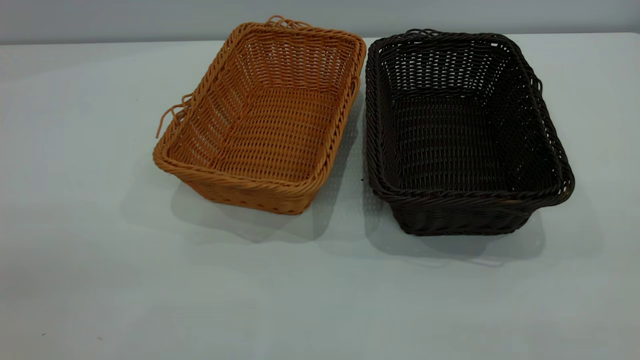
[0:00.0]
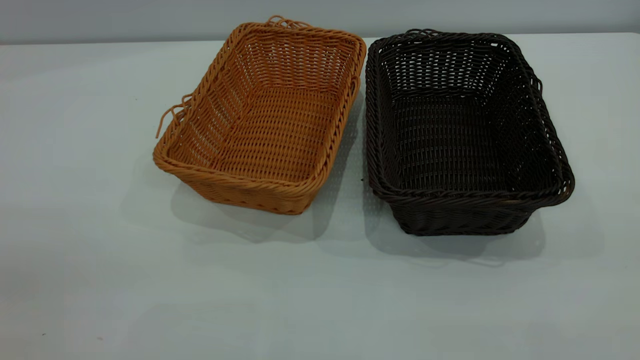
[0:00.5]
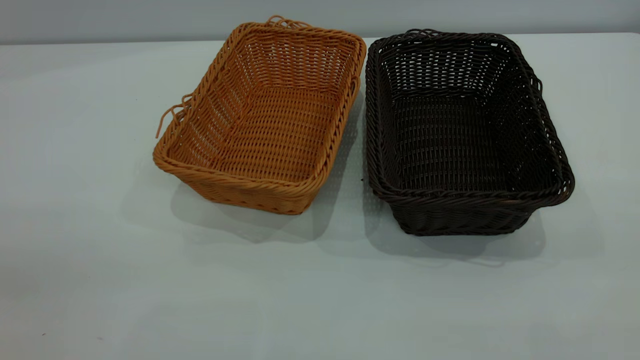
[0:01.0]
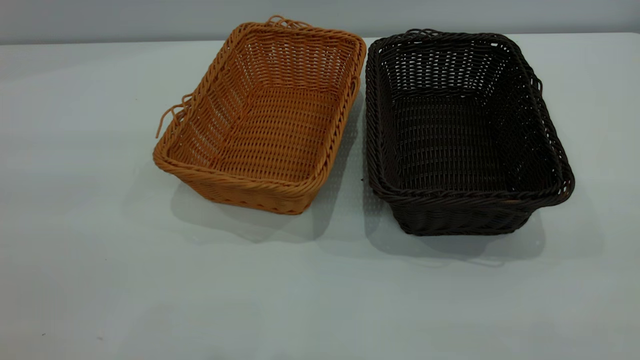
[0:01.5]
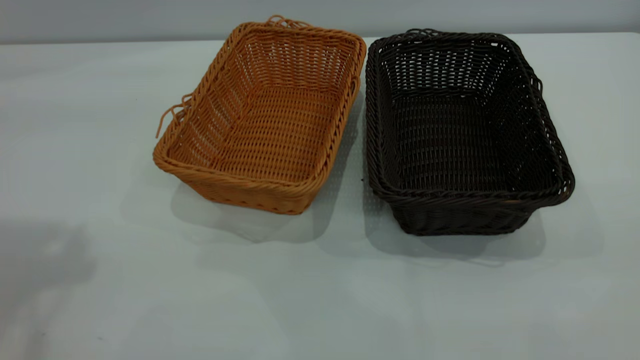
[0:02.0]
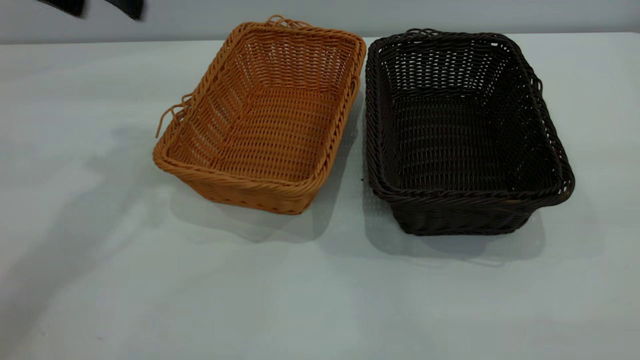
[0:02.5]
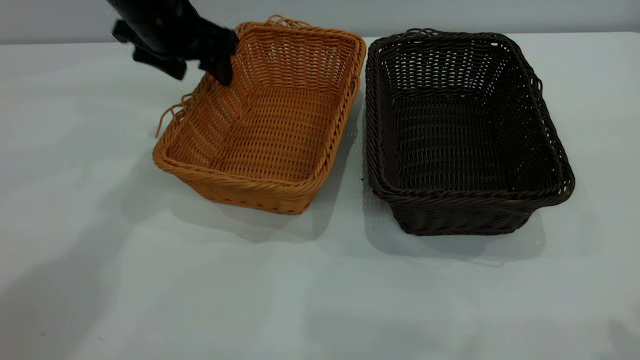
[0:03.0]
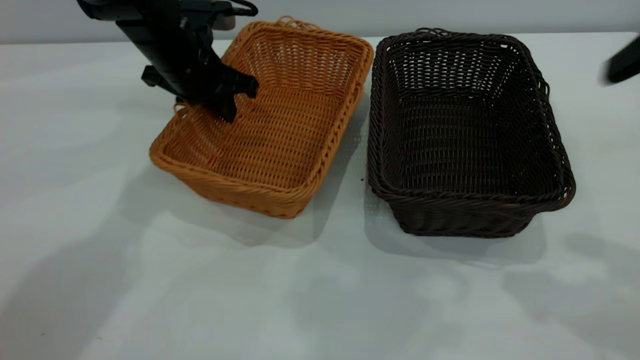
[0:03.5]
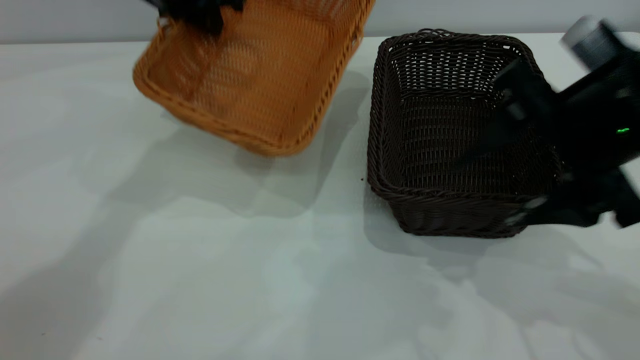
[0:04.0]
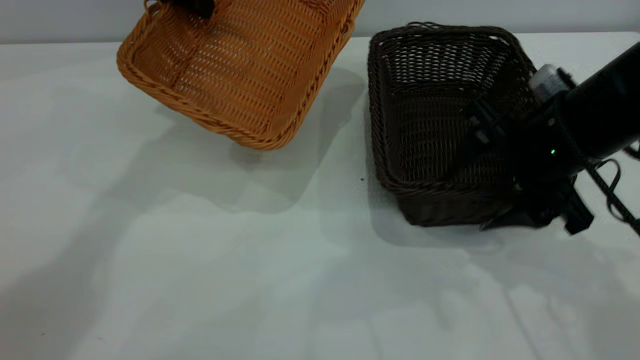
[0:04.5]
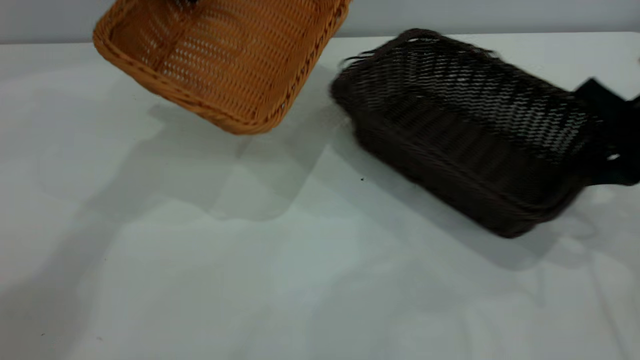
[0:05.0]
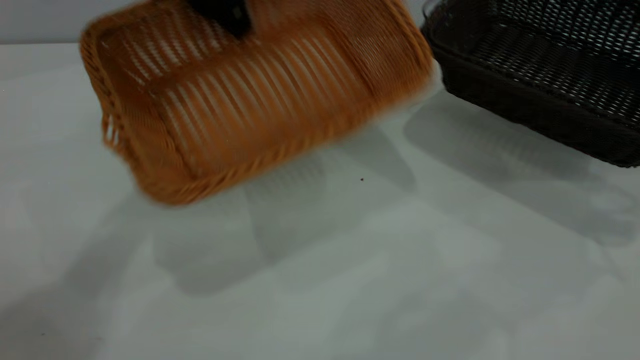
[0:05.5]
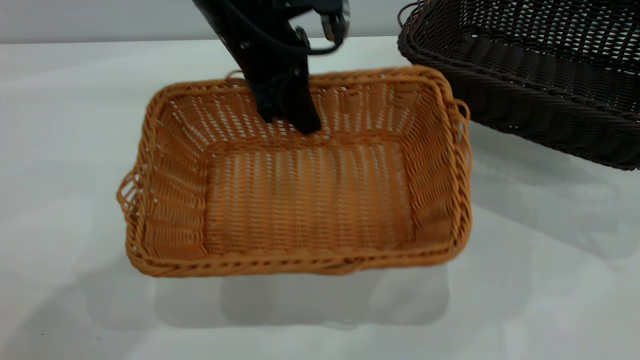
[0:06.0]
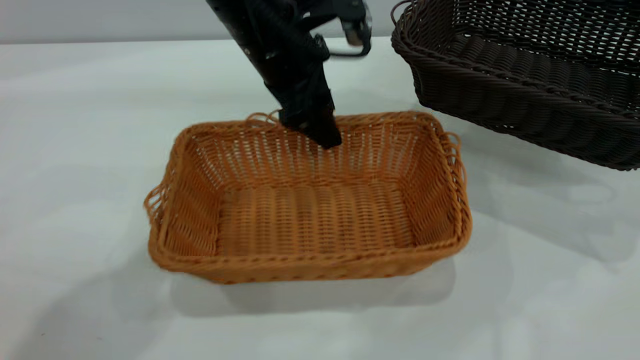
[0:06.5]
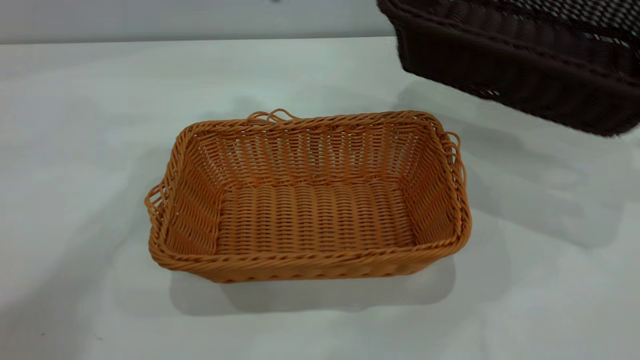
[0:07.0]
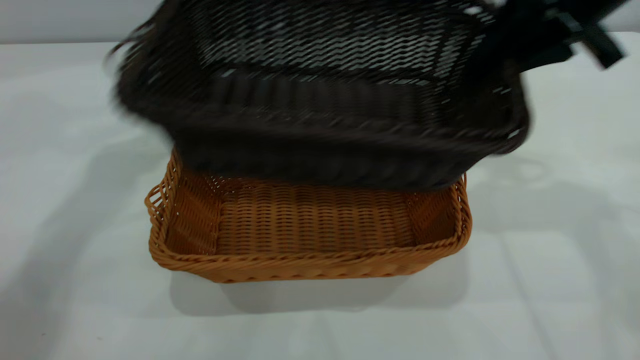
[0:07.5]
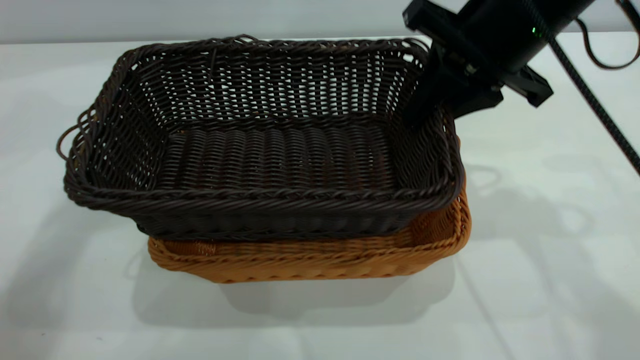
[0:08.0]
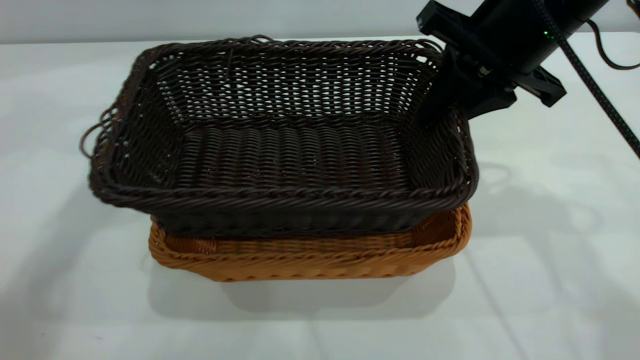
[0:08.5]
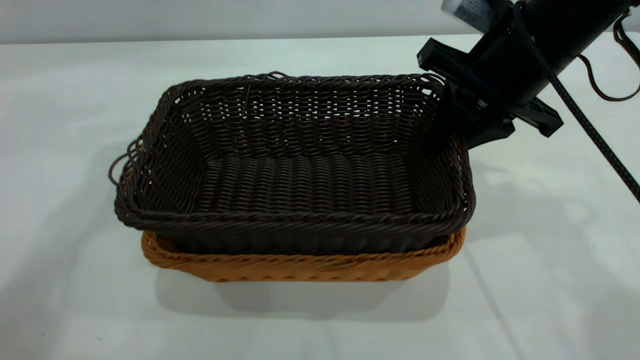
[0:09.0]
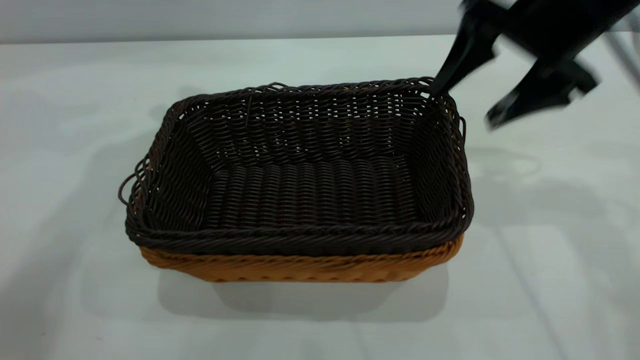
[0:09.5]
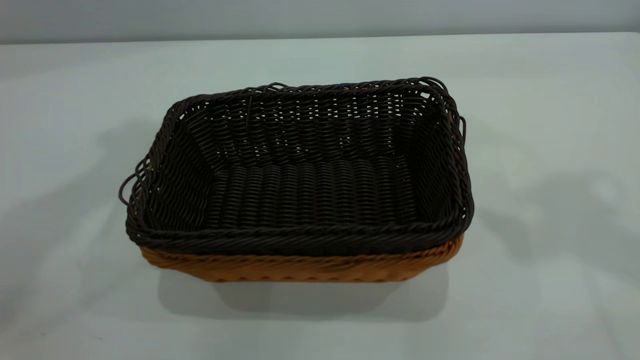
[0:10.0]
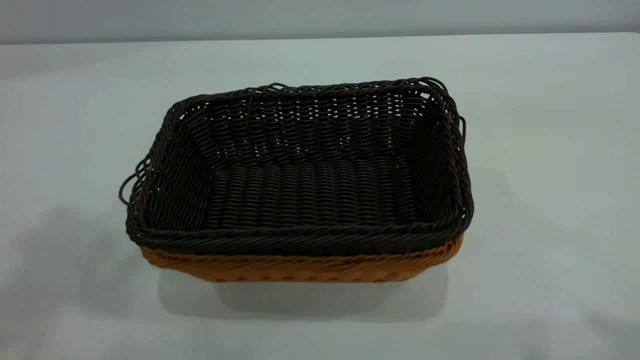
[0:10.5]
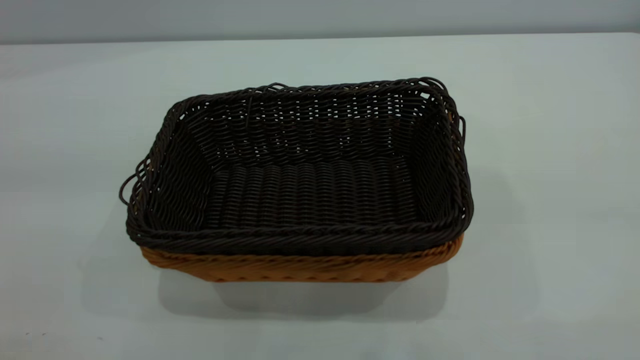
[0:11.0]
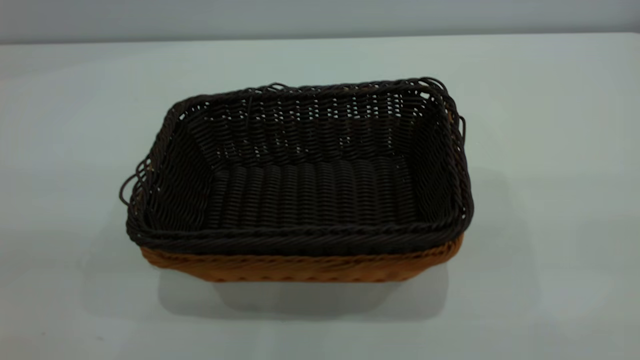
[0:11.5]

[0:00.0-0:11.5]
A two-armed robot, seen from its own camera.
Task of the whole recording: the left gripper grasp the brown basket and place it in the center of the table, the right gripper grasp the black basket and place it inside the brown one.
Step, 0:00.0 to 0:05.0: Pick up the light basket with the right gripper.
Step, 0:05.5 to 0:06.5: Place the light-colored basket in the center.
Step, 0:07.0 to 0:09.0: Place the dark basket on top of the light basket.
0:02.0 to 0:04.0: The right gripper goes some 30 cm forward and downward. The left gripper moves forward, downward and to the right, roughly 30 cm, and closes its fingers.
0:04.0 to 0:06.0: The left gripper shifts about 10 cm to the right and backward. Meanwhile the right gripper goes approximately 20 cm to the right, and closes.
0:06.0 to 0:07.5: The left gripper is displaced to the left, upward and forward by roughly 20 cm, and opens its fingers. The right gripper travels to the left by roughly 20 cm.
0:07.5 to 0:09.5: The right gripper opens up.
0:09.5 to 0:11.5: The grippers both shift backward by about 40 cm.

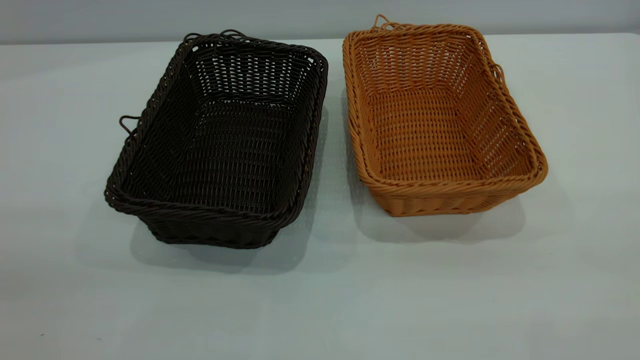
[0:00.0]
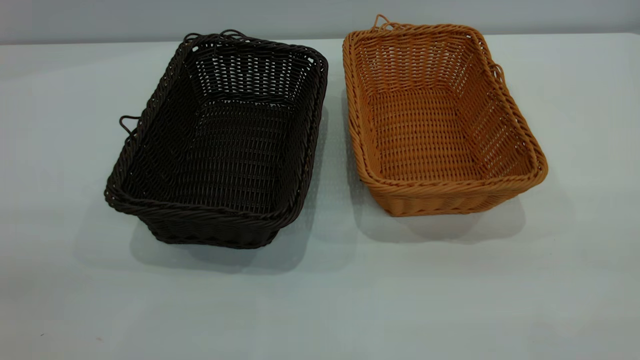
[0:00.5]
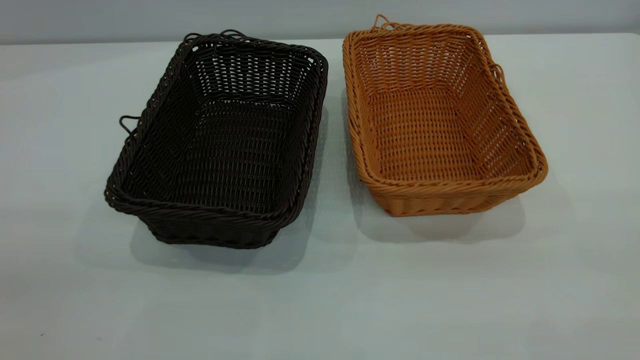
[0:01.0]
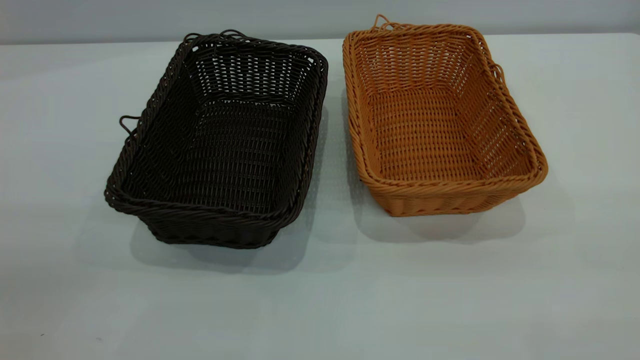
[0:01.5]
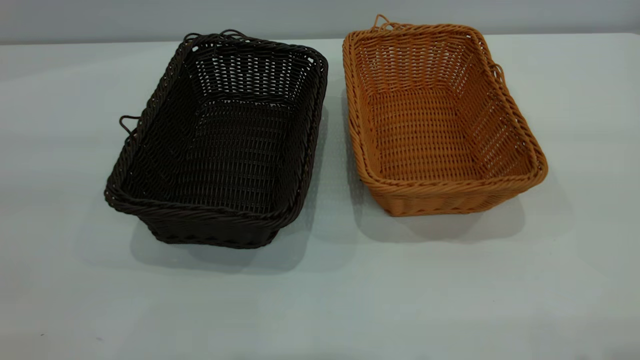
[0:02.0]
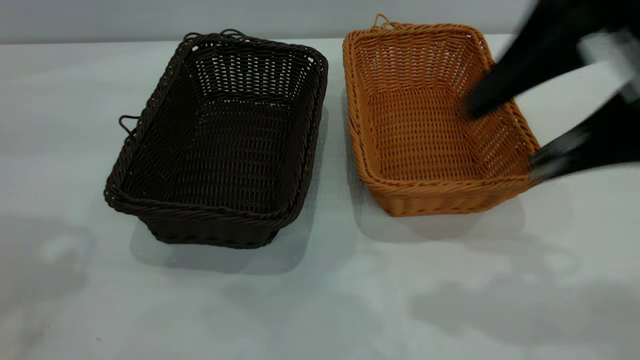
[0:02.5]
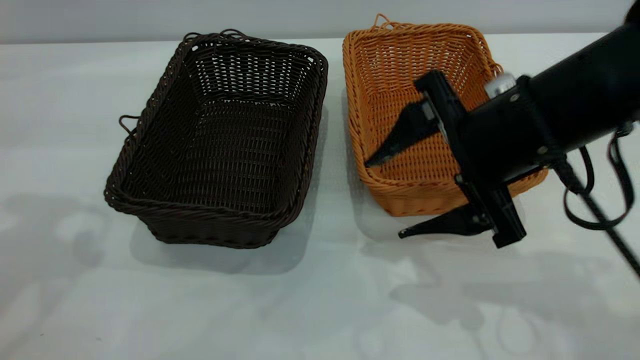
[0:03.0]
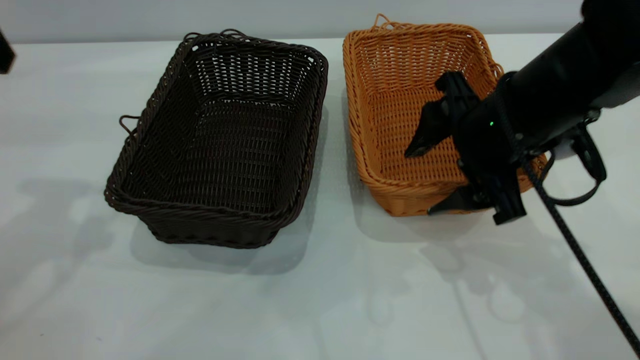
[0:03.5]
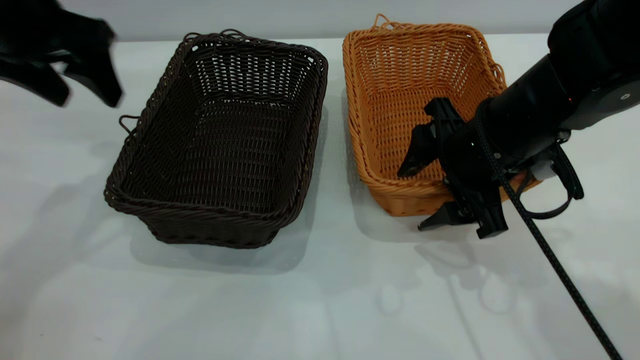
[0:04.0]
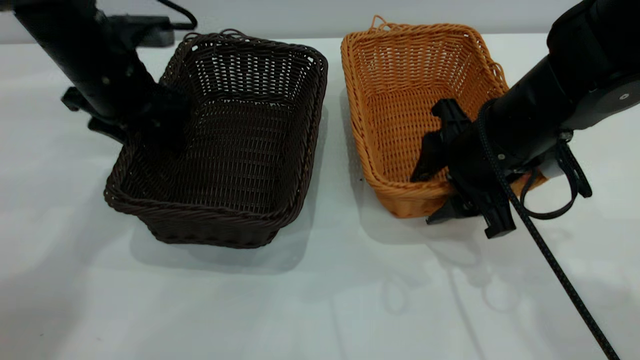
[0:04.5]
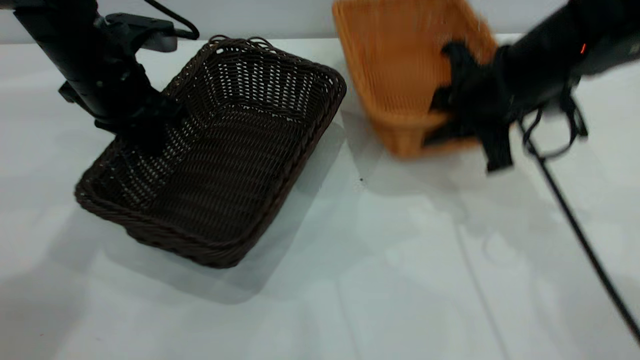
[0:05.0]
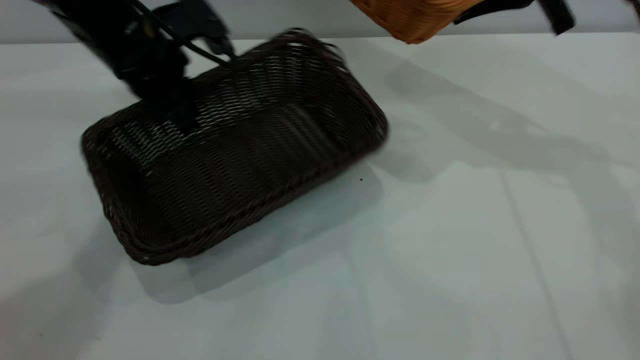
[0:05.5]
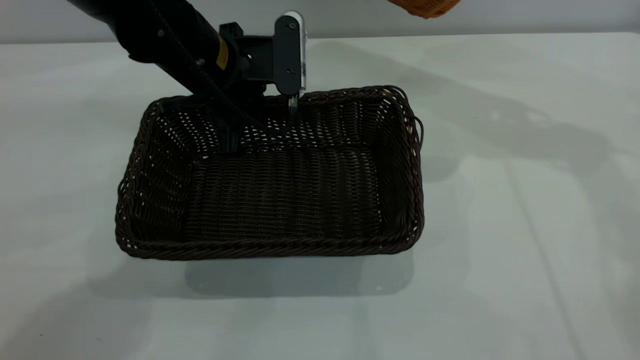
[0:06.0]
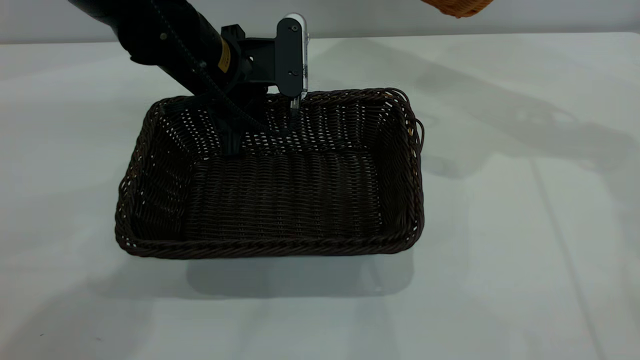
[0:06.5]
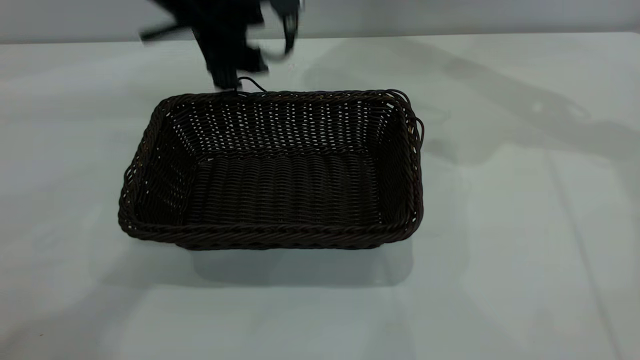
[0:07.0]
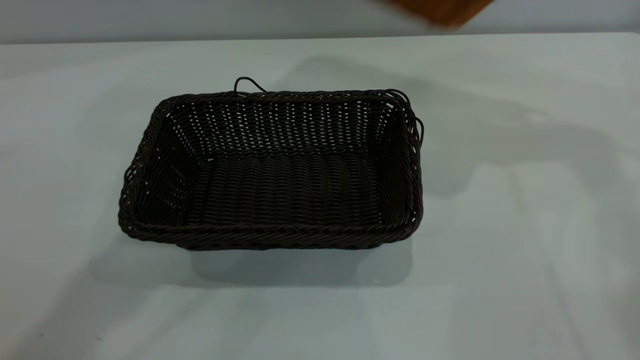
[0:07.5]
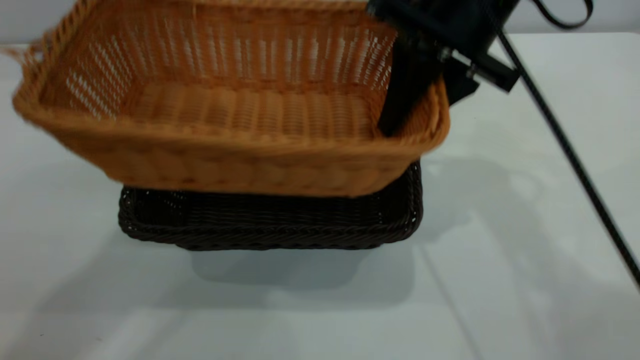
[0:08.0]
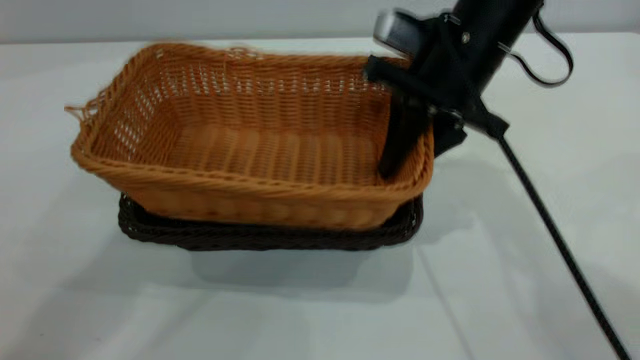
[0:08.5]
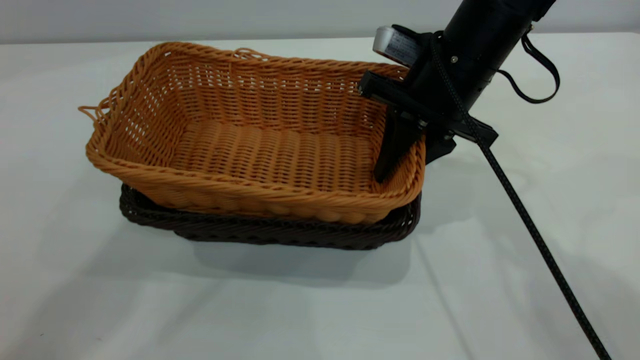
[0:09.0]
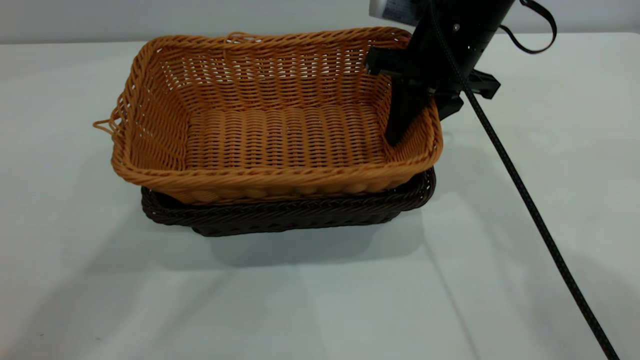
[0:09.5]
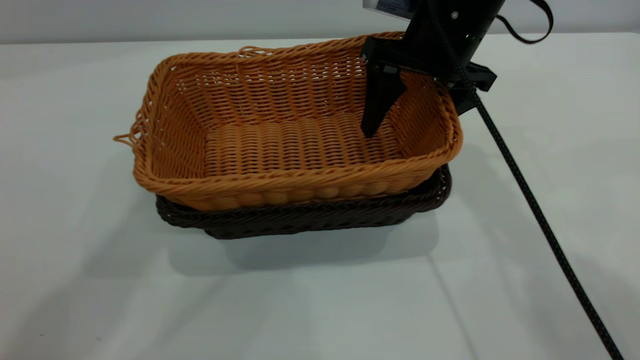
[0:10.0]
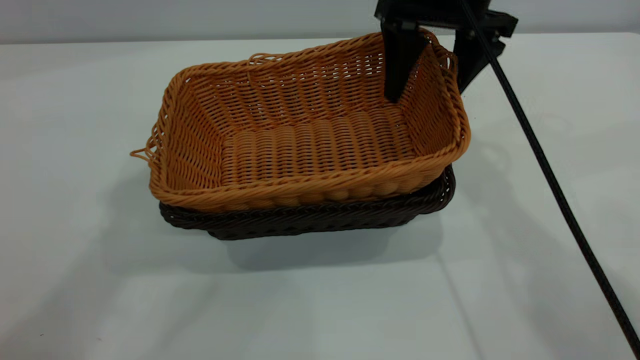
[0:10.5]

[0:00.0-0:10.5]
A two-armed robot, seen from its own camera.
Task of the whole recording: the left gripper grasp the black basket and place it in the center of the table, the right gripper grasp the brown basket and place it inside the black one.
Step, 0:00.0 to 0:04.5: Pick up the light basket with the right gripper.
Step, 0:05.5 to 0:07.0: Move the dark basket to the center of view.
0:02.0 to 0:04.0: The right gripper shifts approximately 35 cm downward, forward and to the left. The left gripper goes some 30 cm forward and downward.
0:04.0 to 0:06.5: The right gripper heads upward, forward and to the right, covering roughly 25 cm, and closes up; the left gripper travels to the right and downward by approximately 15 cm, and closes its fingers.
0:06.5 to 0:08.5: The left gripper shifts roughly 35 cm upward, and opens up. The right gripper travels to the left, downward and backward by roughly 20 cm.
0:08.5 to 0:10.5: The left gripper ends up roughly 5 cm from where it was, while the right gripper goes some 10 cm forward and upward, and opens.
